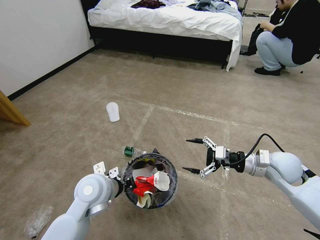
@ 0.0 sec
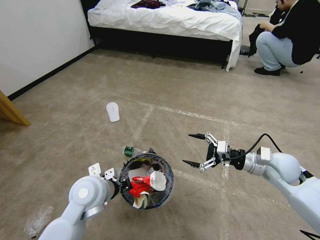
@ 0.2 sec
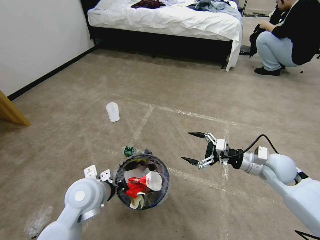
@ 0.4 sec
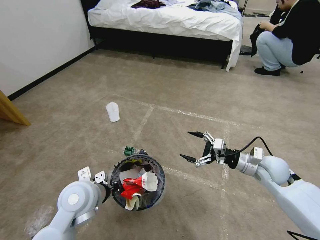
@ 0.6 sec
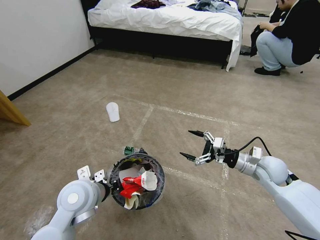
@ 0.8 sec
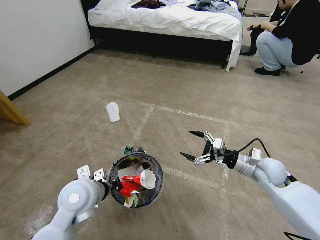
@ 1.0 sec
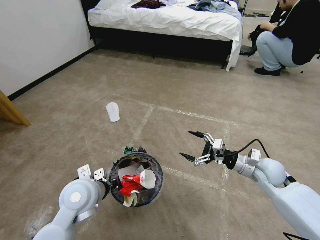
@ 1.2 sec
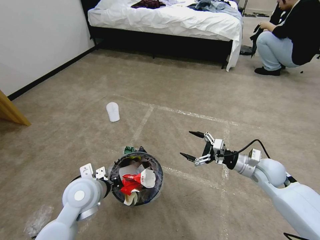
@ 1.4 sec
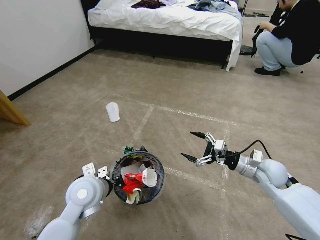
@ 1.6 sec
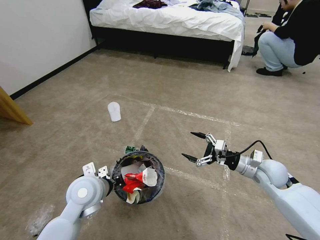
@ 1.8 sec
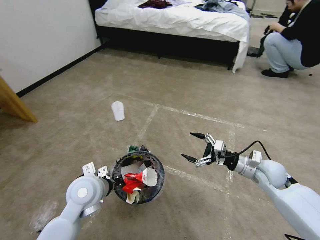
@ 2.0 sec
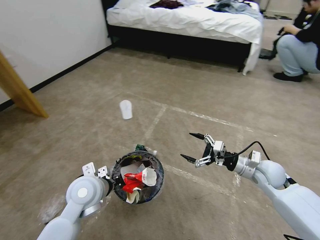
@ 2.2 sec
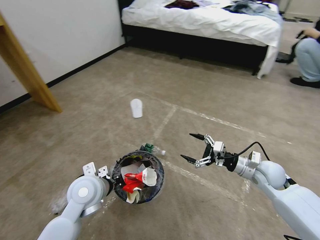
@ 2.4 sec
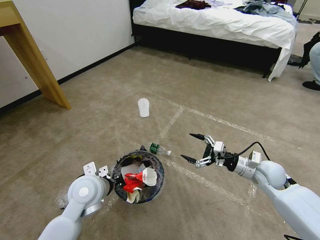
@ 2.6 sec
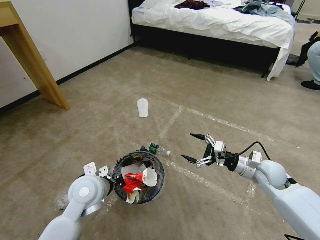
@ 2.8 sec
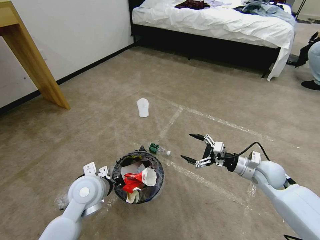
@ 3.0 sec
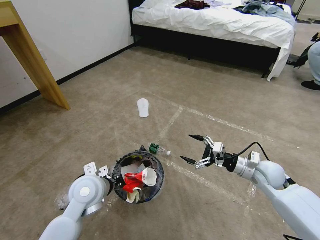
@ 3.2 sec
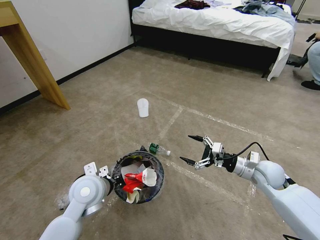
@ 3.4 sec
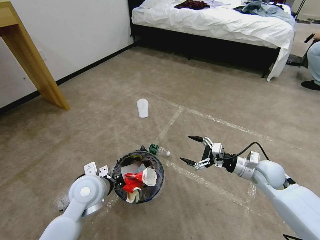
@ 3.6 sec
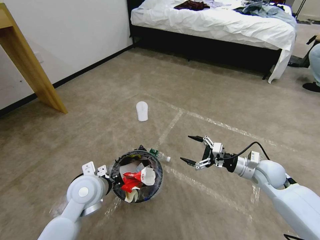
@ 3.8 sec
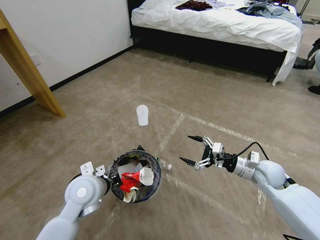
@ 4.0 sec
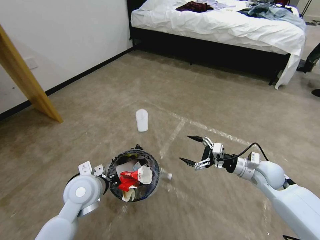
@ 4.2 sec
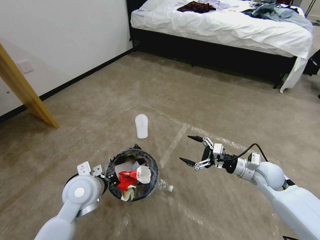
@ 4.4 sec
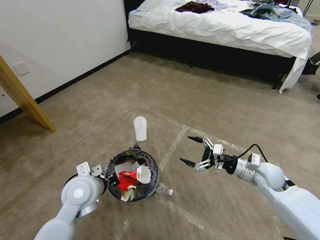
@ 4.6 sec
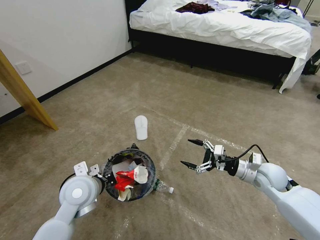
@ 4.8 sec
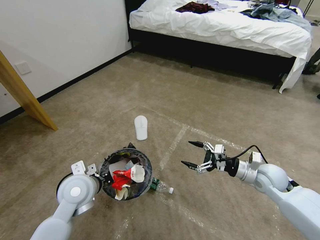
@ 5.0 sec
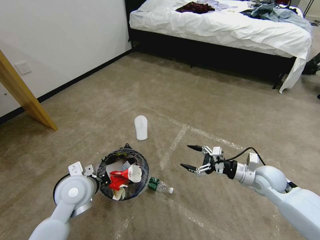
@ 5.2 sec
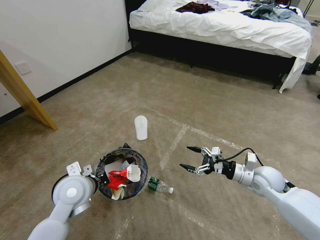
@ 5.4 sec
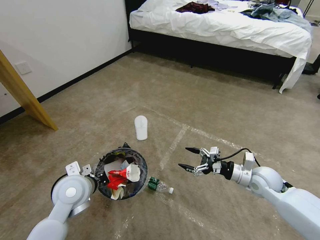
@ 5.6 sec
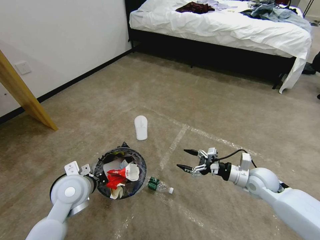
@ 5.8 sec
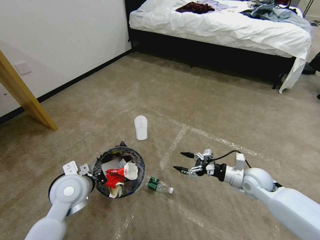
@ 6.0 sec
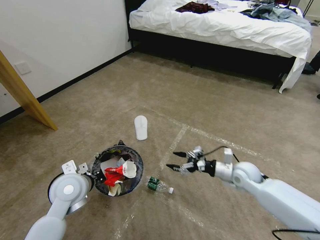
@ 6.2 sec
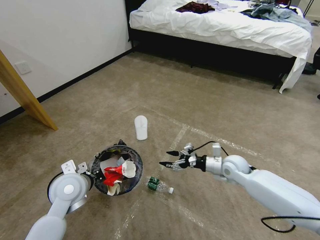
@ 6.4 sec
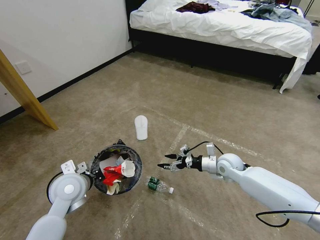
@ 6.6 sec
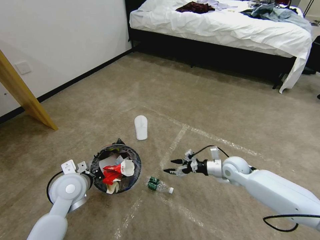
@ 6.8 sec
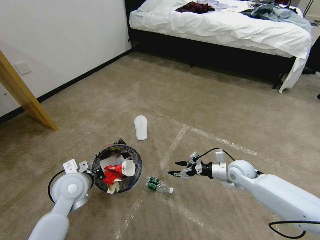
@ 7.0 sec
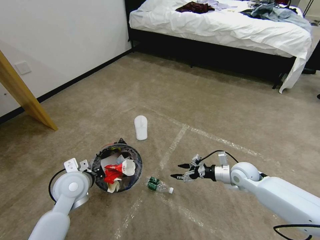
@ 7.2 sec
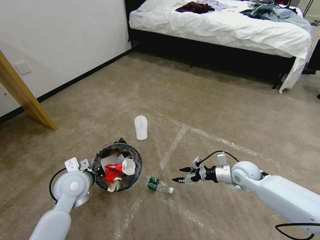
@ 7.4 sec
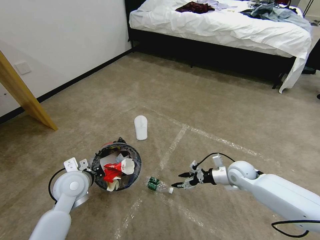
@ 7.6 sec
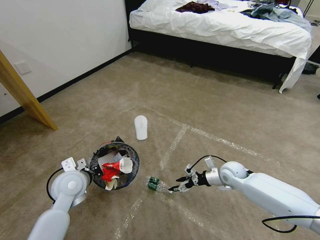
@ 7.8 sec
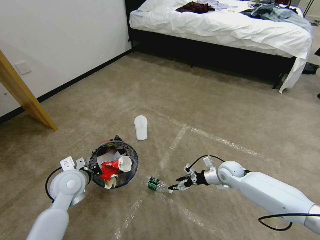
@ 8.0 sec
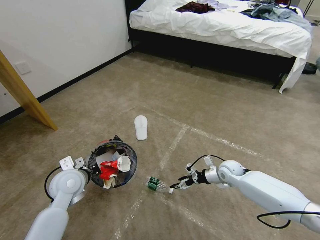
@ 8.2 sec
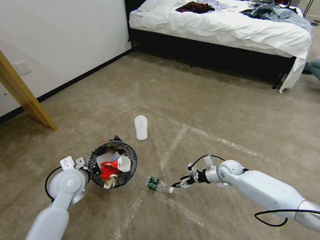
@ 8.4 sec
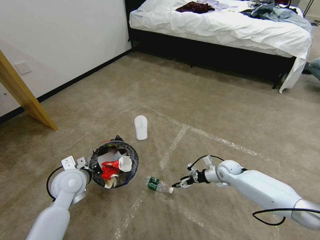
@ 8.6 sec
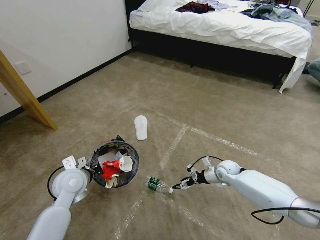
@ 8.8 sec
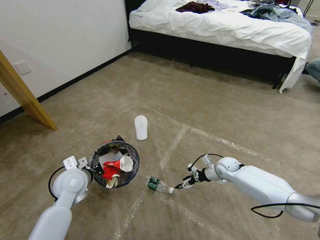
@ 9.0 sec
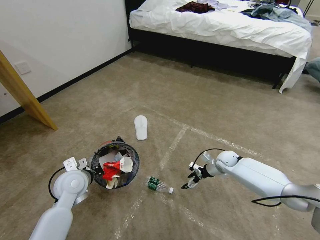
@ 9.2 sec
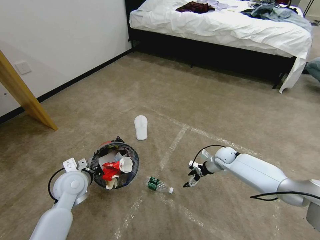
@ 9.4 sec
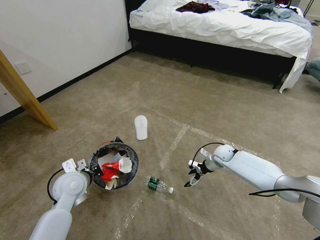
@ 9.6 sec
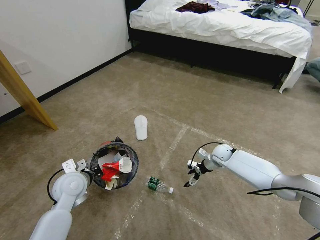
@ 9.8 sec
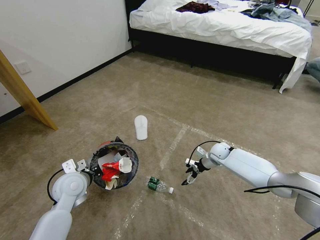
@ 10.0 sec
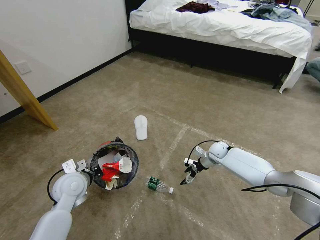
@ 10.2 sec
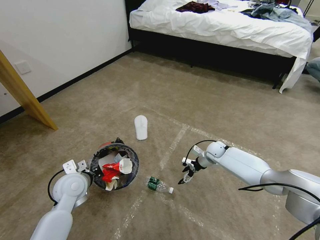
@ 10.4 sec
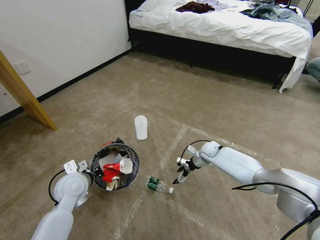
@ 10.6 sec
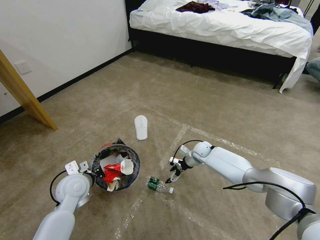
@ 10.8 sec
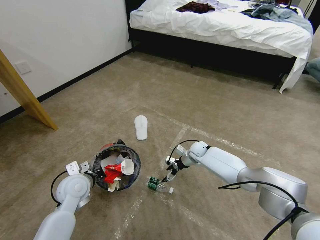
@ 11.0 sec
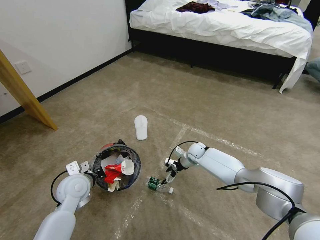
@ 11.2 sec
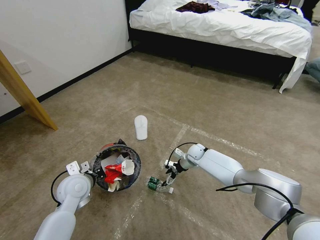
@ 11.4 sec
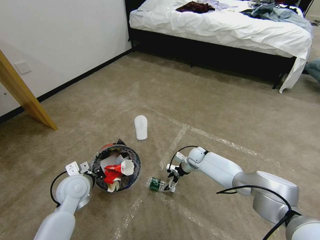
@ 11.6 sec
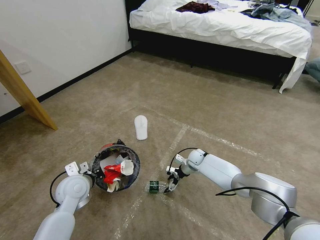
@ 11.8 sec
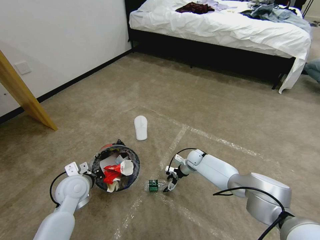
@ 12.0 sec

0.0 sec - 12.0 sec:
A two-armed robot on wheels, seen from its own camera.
Task of the whole recording: Pick up the trash bin and place the garbage on the floor into it.
0.0 sec - 1.6 sec: The right gripper moves downward, roughly 5 cm.
6.0 sec - 7.6 sec: The right gripper moves forward, approximately 5 cm.
7.6 sec - 9.0 sec: The right gripper is displaced downward and forward by about 10 cm.
9.0 sec - 10.4 sec: The right gripper goes some 10 cm forward.
10.4 sec - 12.0 sec: The right gripper travels to the left and downward by roughly 10 cm.

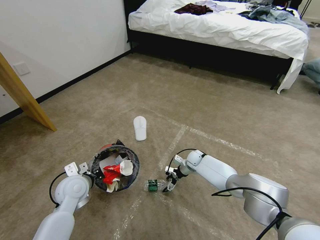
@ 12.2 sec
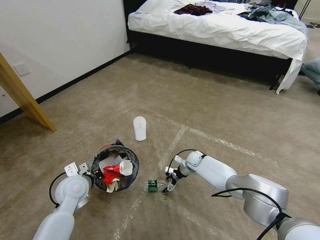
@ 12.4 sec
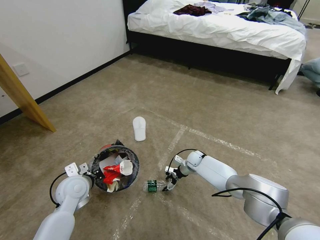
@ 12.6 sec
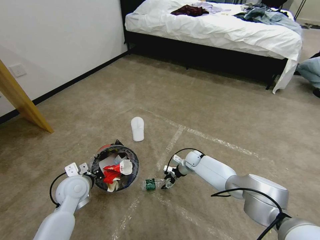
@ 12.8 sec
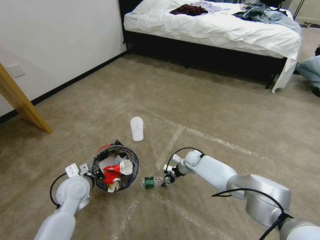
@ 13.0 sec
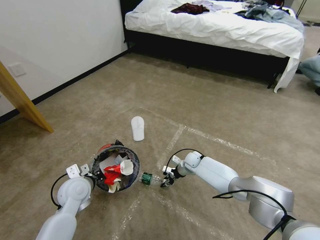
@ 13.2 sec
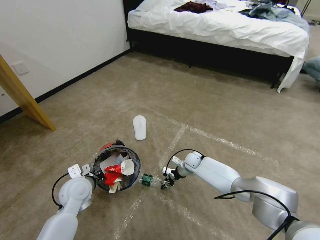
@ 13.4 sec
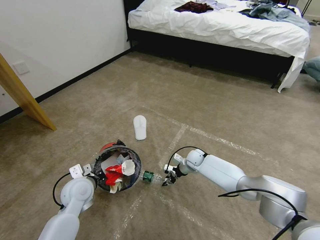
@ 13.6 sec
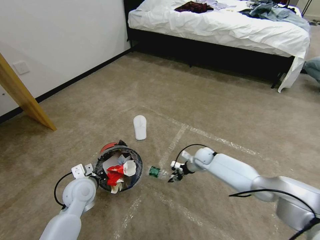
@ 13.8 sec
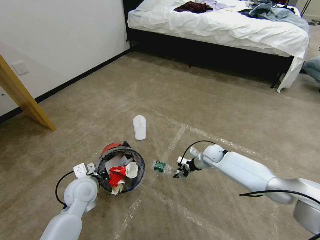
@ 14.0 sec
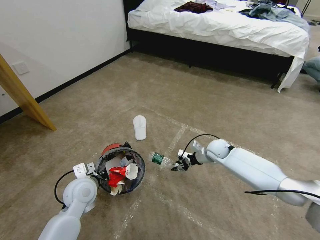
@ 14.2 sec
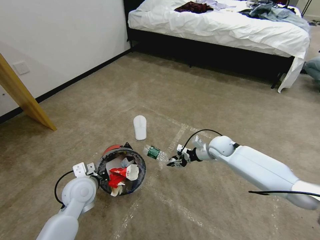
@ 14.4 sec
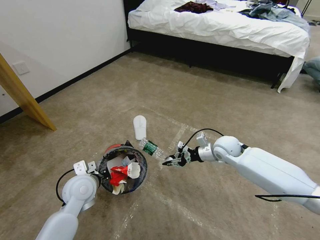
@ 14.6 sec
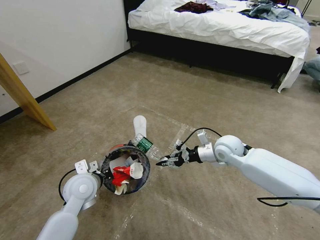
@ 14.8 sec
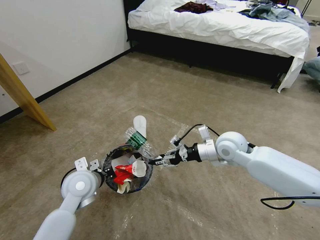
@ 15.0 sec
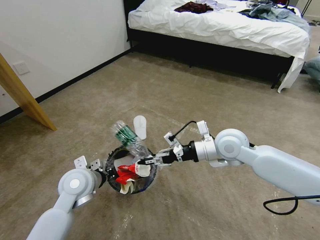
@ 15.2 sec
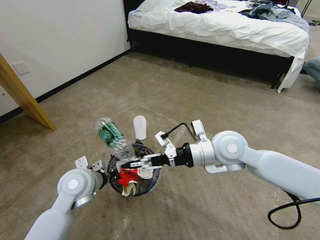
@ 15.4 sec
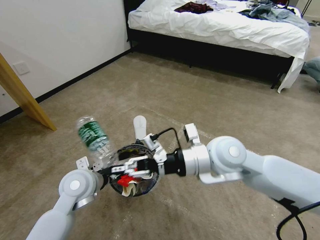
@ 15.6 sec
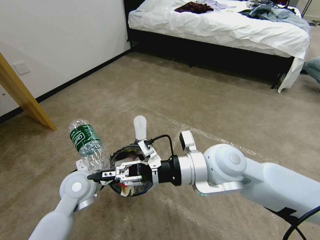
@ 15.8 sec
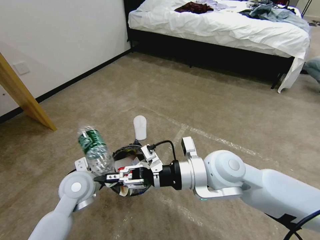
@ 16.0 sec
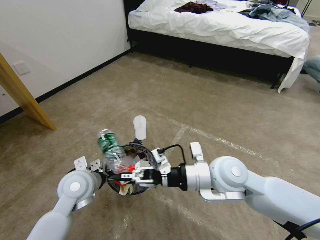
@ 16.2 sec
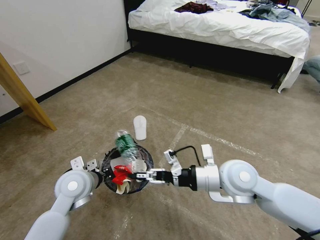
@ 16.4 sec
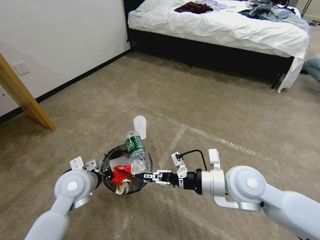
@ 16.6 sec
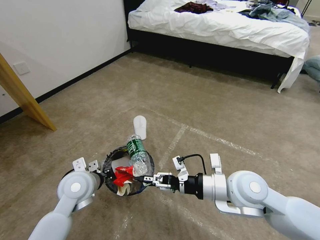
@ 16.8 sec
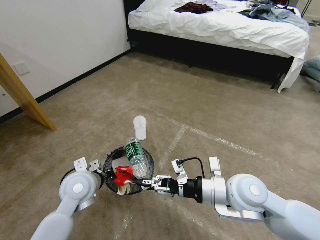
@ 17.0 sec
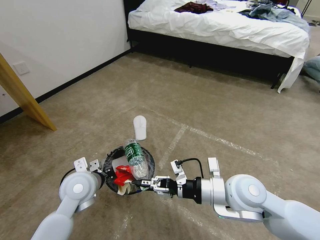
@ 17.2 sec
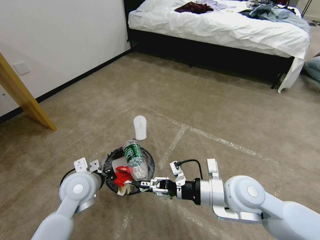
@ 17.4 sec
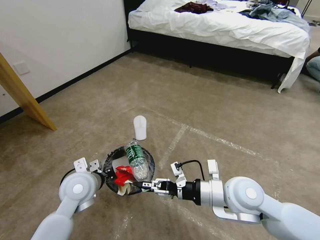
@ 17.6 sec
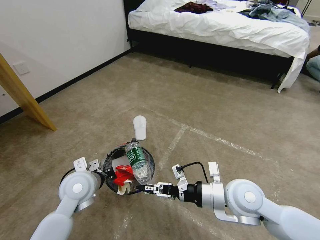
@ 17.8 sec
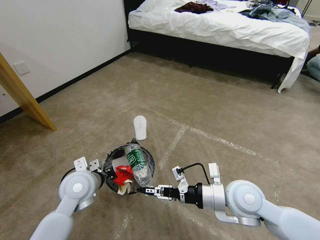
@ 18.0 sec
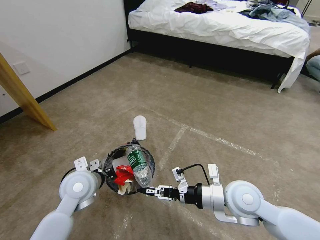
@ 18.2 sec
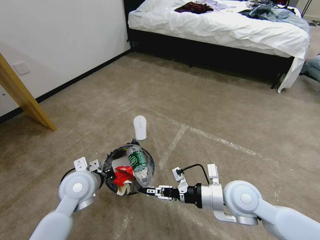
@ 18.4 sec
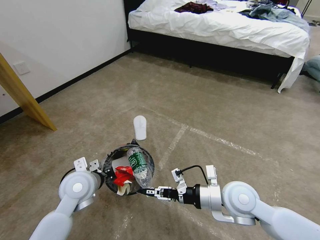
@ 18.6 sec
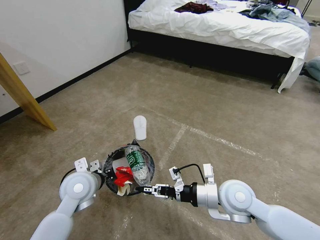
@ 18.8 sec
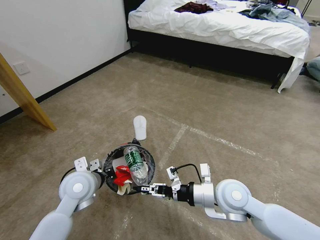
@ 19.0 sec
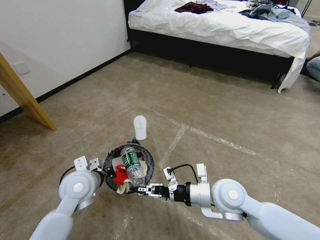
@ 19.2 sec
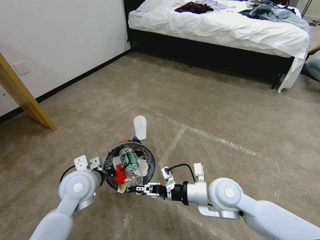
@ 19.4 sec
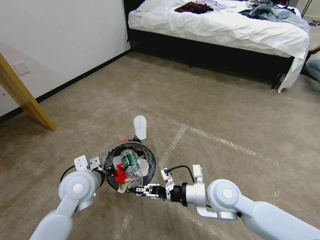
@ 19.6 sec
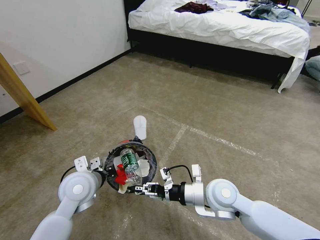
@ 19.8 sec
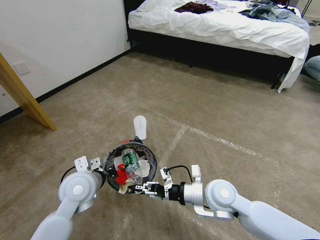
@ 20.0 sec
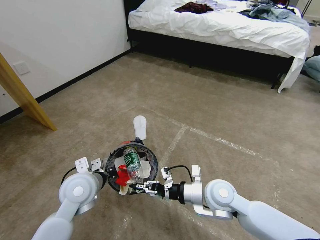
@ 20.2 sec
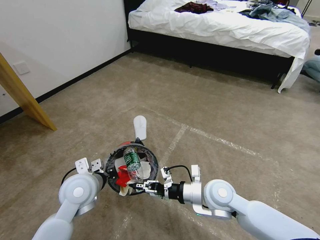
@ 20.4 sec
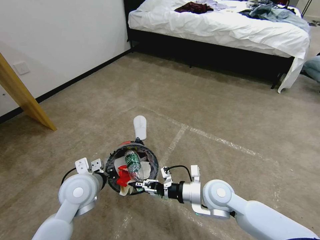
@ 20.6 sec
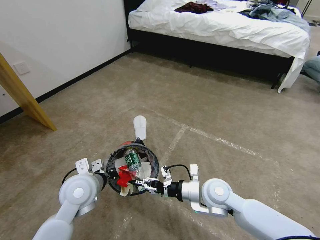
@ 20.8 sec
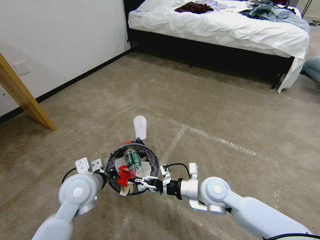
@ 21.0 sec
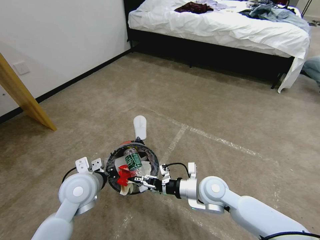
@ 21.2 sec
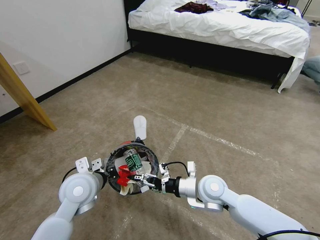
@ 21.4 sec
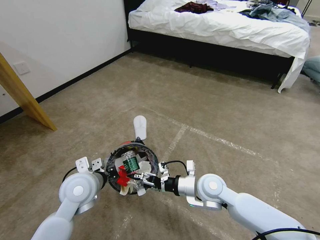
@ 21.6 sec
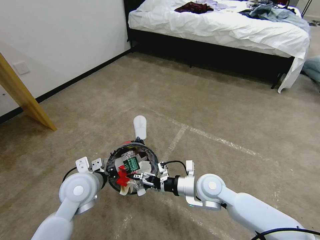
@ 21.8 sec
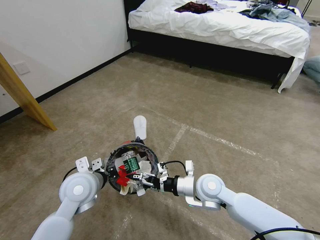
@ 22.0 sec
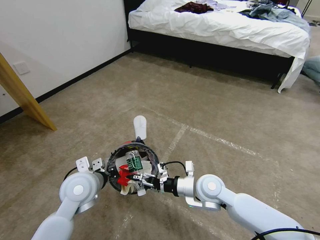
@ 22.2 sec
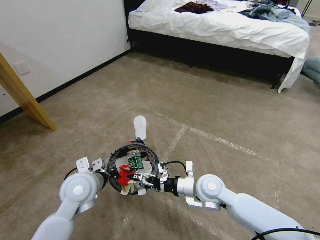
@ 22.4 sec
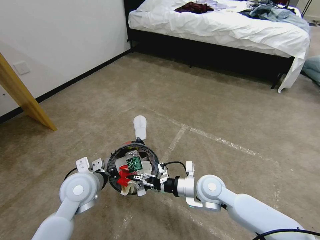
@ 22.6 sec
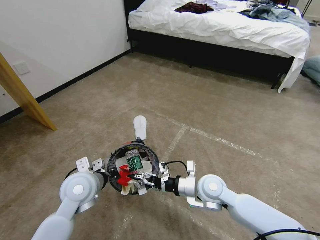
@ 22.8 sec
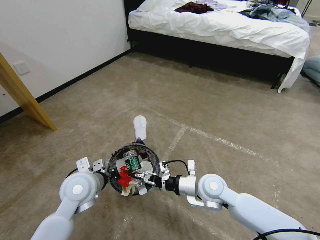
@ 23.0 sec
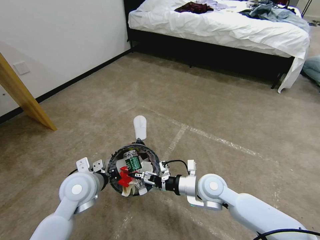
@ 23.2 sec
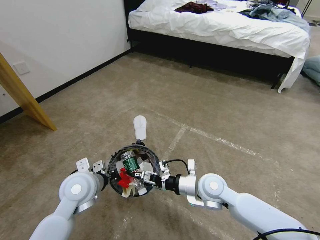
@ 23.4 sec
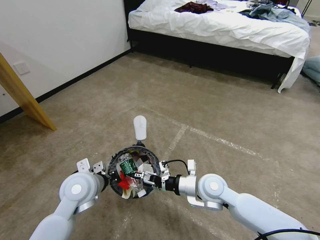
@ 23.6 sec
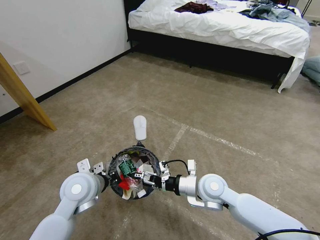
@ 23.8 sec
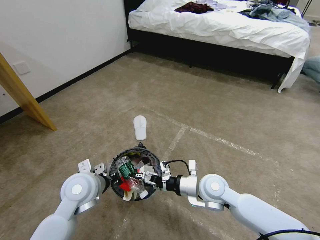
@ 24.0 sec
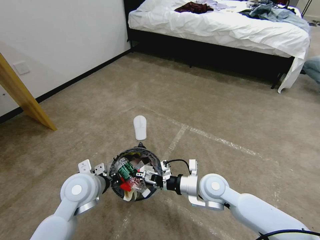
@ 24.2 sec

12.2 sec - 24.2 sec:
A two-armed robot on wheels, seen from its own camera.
Task of the whole recording: Pick up the trash bin and place the garbage on the floor into it.
12.2 sec - 13.8 sec: The right gripper ends up approximately 5 cm from where it was, and closes up.
13.8 sec - 15.2 sec: The right gripper moves upward and backward, roughly 30 cm, while the left gripper shifts approximately 5 cm upward.
15.2 sec - 16.6 sec: The right gripper is displaced backward by about 10 cm.
16.6 sec - 18.2 sec: There are only small adjustments of the grippers.
18.2 sec - 19.8 sec: The right gripper shifts by some 5 cm.
19.8 sec - 21.2 sec: The right gripper opens its fingers.
21.2 sec - 22.6 sec: Both grippers stay put.
22.6 sec - 24.2 sec: The grippers make only small movements.
